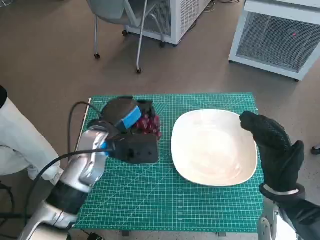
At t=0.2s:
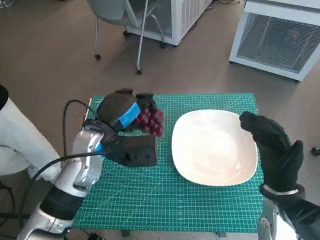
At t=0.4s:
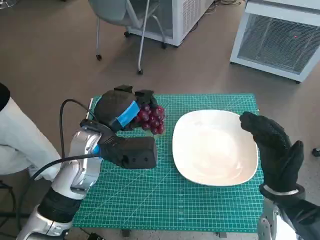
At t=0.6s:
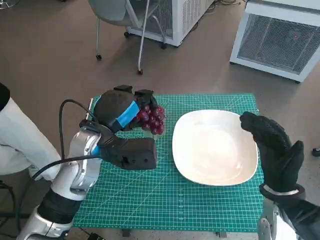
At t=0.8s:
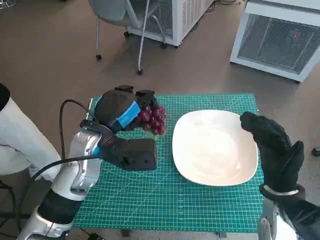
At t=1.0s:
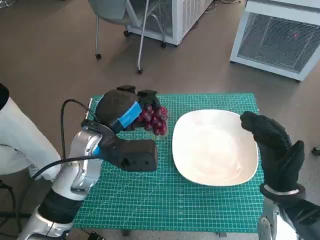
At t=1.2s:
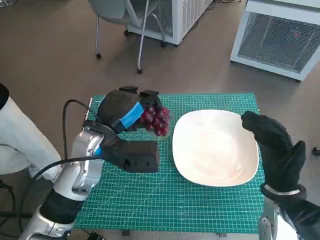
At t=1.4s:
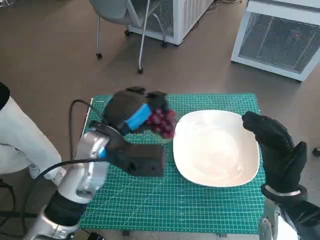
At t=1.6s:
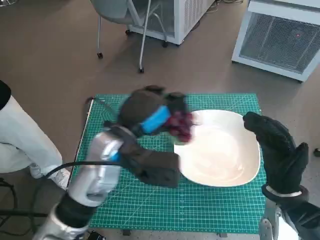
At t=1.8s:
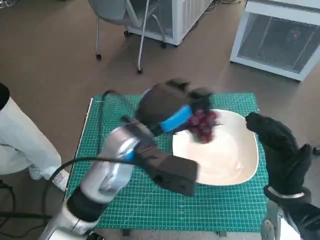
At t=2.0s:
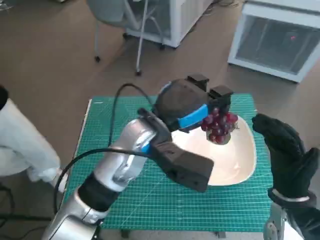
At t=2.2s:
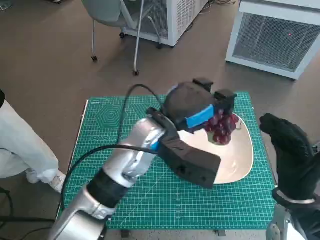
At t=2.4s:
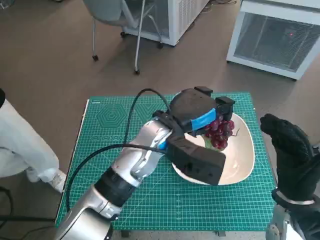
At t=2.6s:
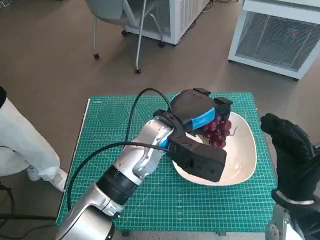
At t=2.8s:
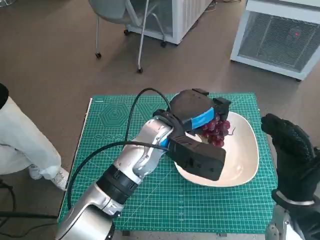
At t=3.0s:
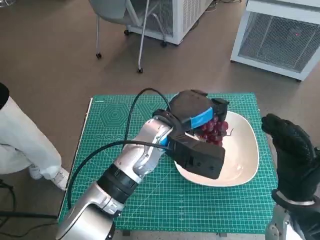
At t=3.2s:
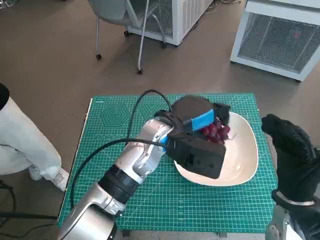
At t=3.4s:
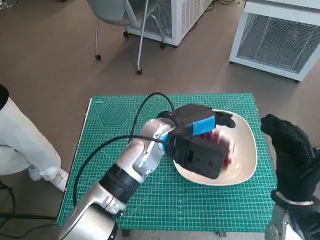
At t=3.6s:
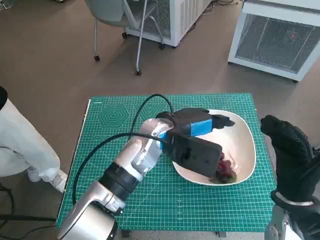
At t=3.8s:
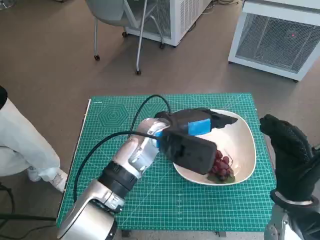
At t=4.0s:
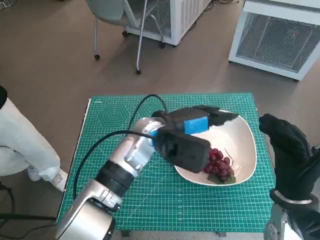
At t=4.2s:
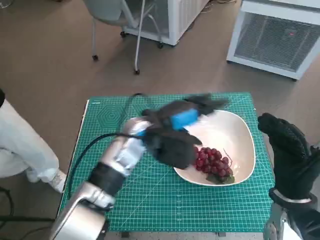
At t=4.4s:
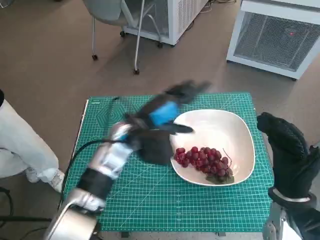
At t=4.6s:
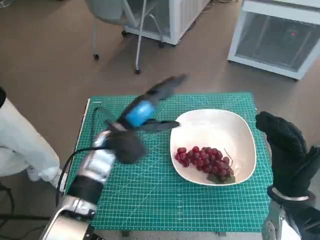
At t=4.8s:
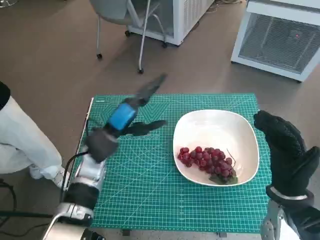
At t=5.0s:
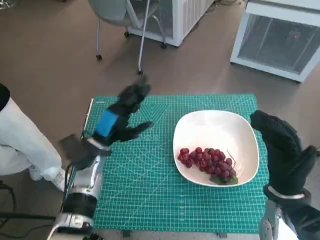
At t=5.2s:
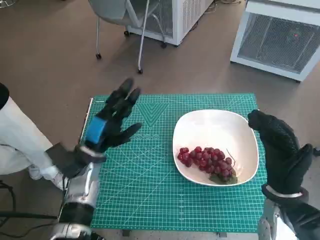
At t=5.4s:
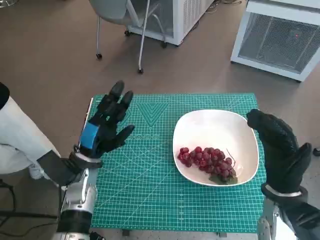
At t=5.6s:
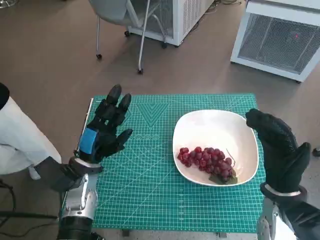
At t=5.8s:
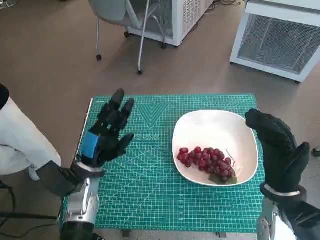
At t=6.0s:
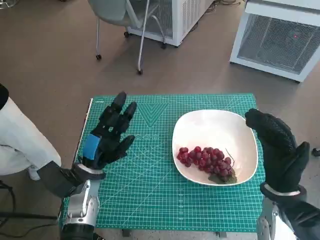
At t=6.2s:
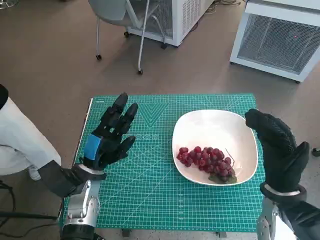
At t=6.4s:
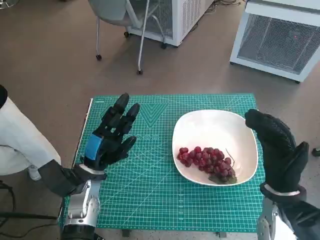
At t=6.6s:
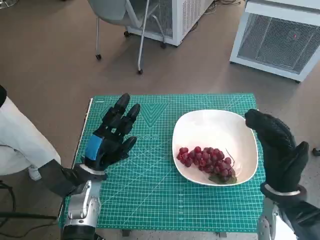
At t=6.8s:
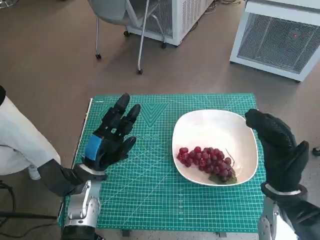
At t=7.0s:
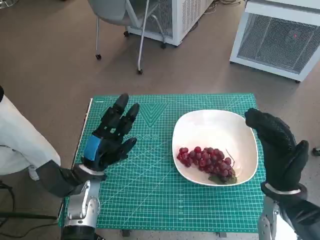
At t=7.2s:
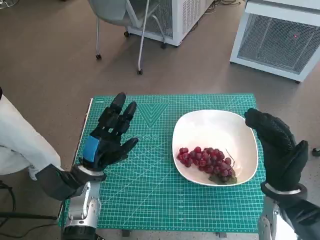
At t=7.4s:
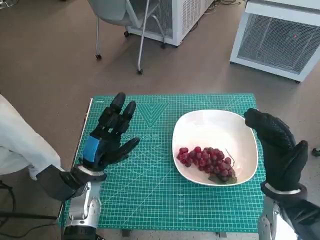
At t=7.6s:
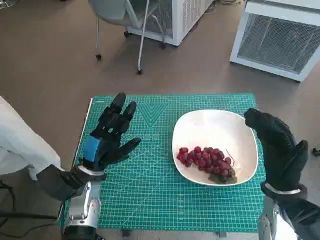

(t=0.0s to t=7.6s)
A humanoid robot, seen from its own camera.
Task of the whole recording: Pick up the grapes and put them on the plate.
Step, t=0.0s - t=3.6s: Place the grapes in the plate with left hand.
t=0.0s - t=1.6s: The left hand changes place by about 5 cm.
t=1.6s - t=3.0s: The left hand heads to the right, covering roughly 10 cm.
t=3.0s - t=4.6s: The left hand heads to the left, covering roughly 10 cm.
t=4.6s - t=6.0s: The left hand moves to the left, downward and backward, some 10 cm.
t=6.0s - t=7.6s: There are only small adjustments of the hands.

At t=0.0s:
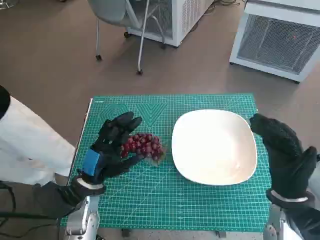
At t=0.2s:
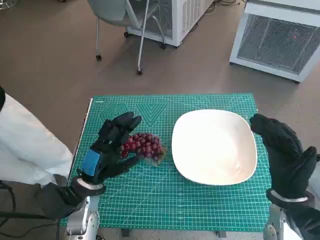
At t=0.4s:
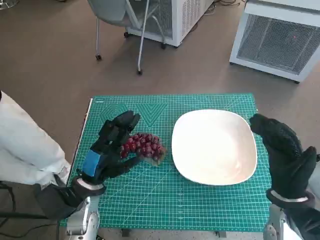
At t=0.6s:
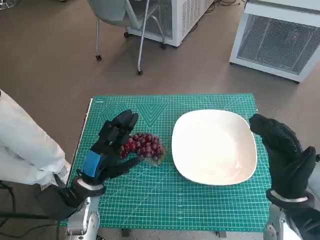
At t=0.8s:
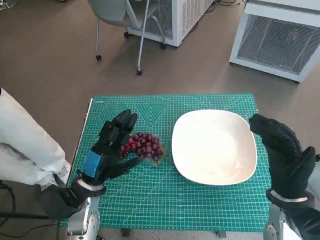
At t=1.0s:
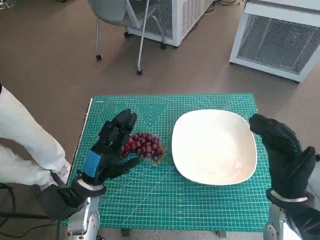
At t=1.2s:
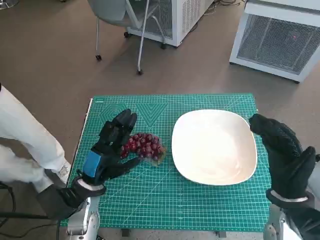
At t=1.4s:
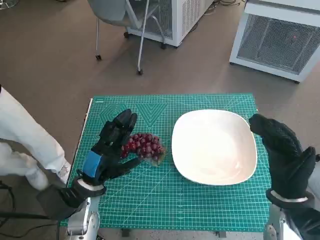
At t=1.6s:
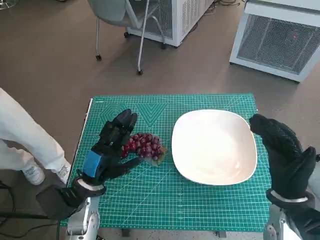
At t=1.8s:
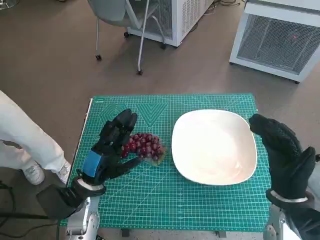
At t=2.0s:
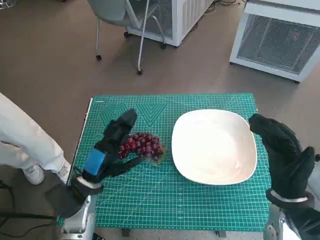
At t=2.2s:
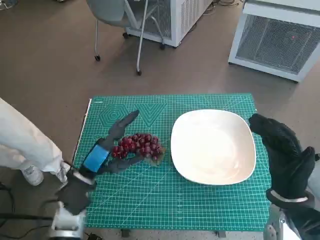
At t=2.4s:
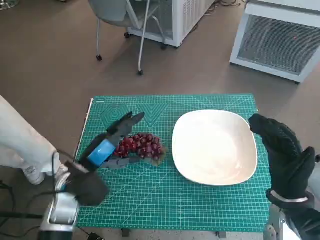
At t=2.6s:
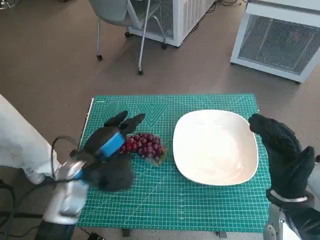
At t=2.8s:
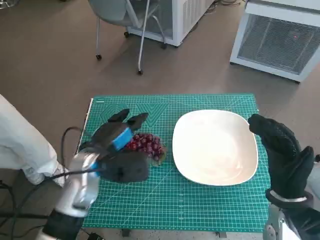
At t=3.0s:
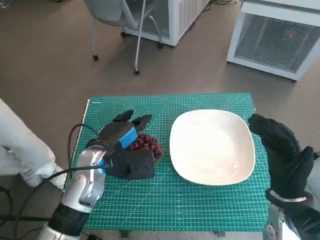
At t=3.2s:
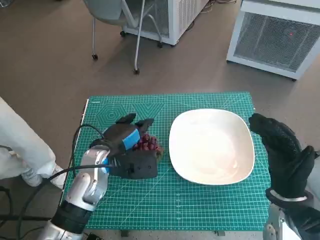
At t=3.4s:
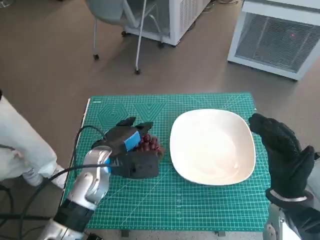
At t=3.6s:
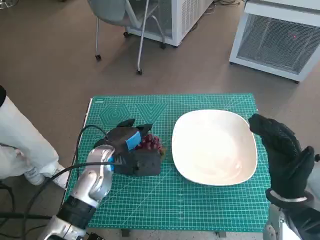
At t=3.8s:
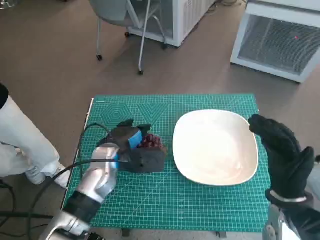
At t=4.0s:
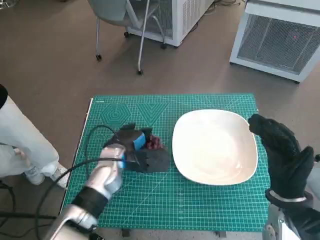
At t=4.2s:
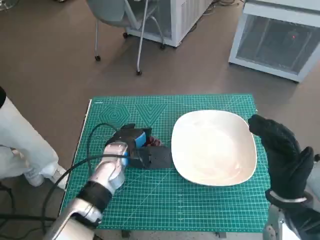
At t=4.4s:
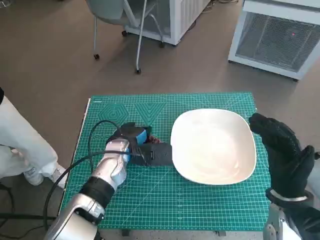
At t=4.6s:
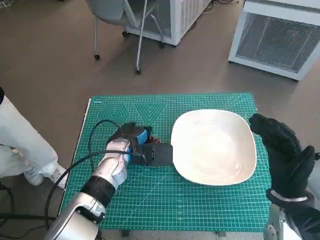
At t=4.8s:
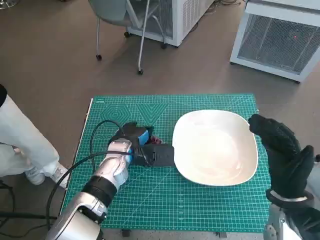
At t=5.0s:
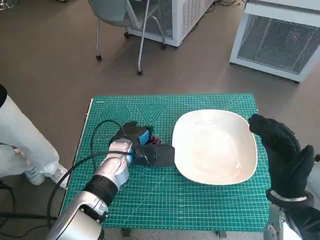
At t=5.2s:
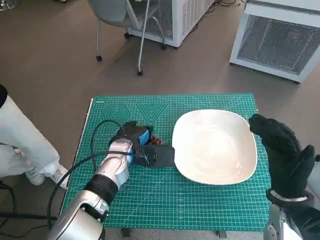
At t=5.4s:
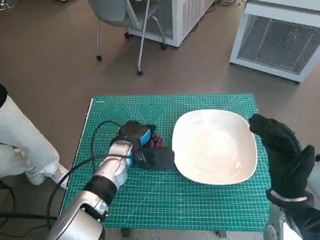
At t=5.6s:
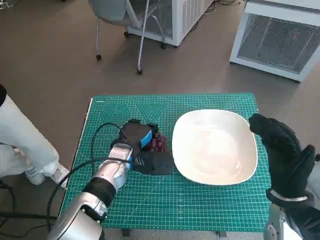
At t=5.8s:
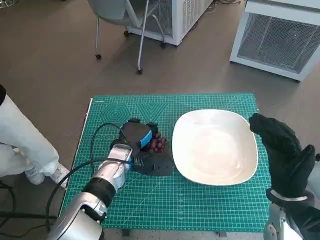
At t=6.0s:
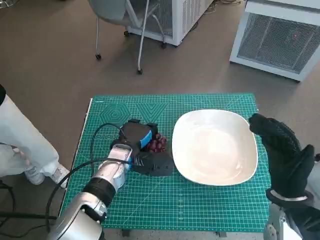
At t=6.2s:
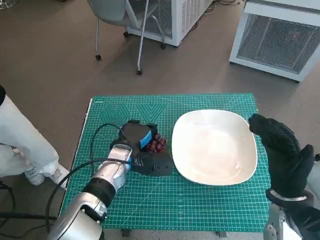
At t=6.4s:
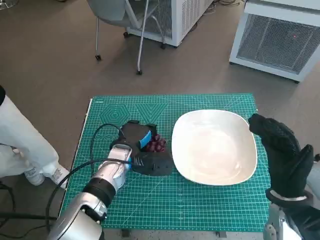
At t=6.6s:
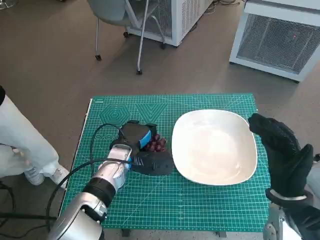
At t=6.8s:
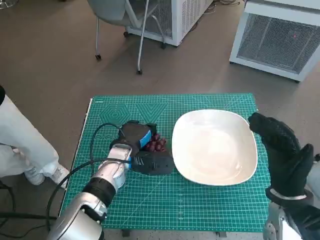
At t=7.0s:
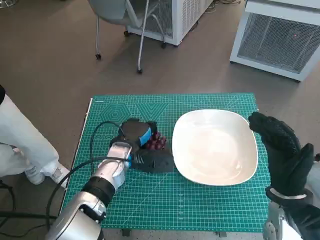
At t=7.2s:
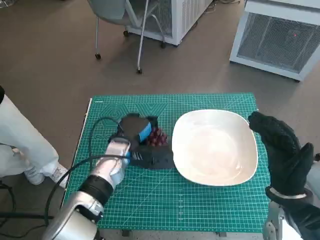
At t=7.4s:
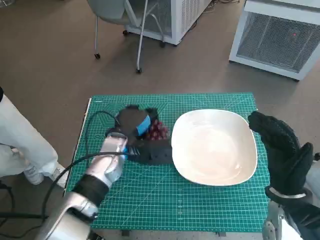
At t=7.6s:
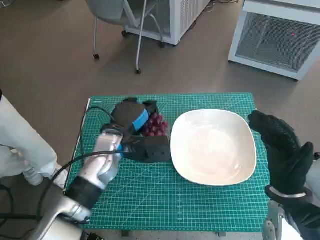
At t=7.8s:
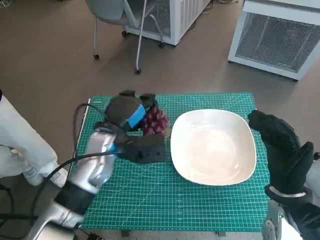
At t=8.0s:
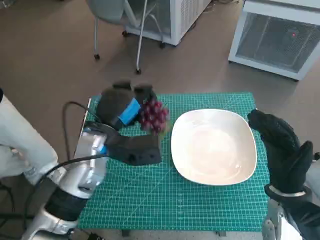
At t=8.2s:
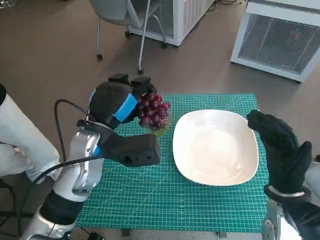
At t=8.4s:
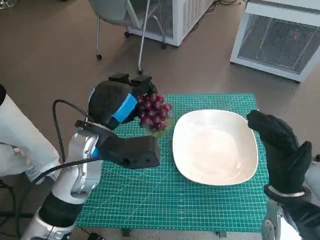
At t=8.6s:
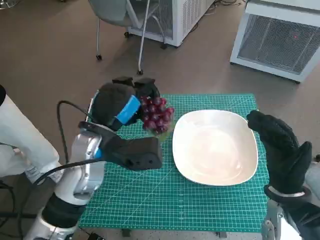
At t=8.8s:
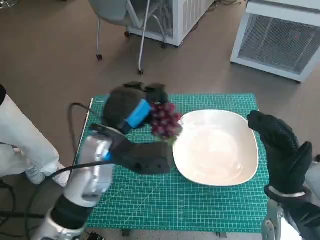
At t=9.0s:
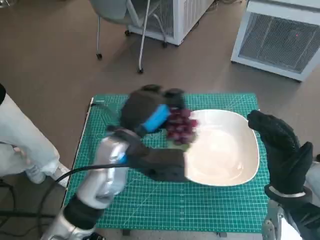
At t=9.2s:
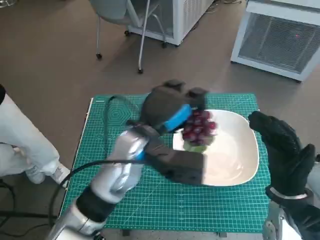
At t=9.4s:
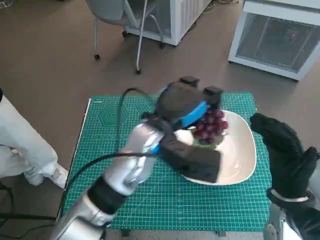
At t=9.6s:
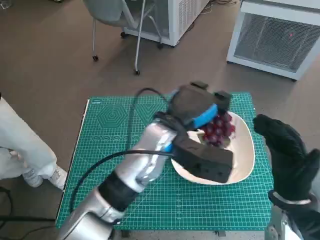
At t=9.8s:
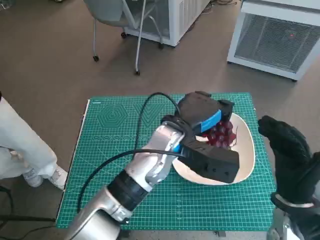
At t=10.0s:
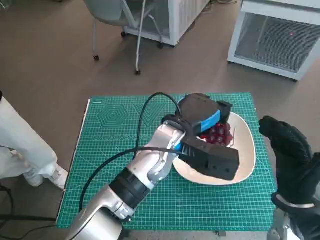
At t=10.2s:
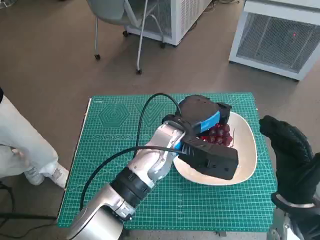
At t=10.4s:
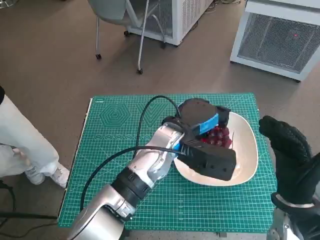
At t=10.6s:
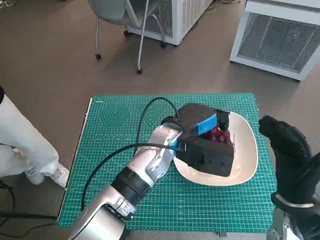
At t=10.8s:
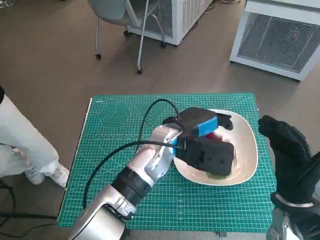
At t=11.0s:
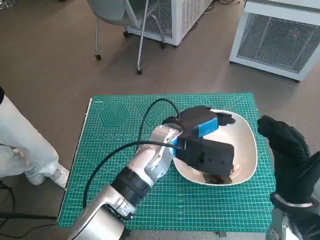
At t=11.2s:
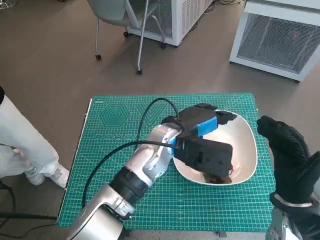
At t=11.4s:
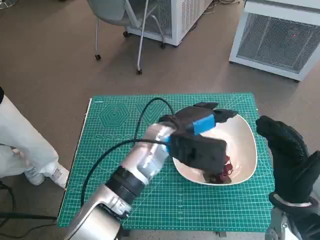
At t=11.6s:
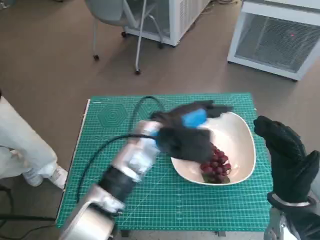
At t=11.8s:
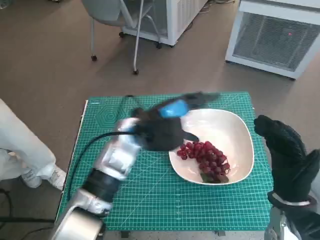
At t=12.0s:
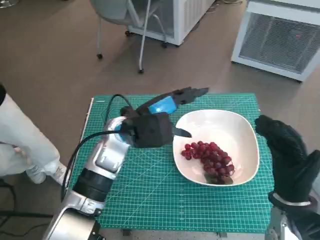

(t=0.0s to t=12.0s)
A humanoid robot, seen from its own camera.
Task of the whole recording: Pick up the grapes and put them on the plate.
Step, t=0.0s - t=5.6s: Grasp the grapes with left hand.
Step, t=5.8s - t=11.0s: Place the grapes in the plate with left hand.
t=1.6s - t=3.0s: The left hand shifts about 5 cm upward.
t=3.0s - t=4.4s: The left hand moves roughly 5 cm.
t=4.4s - t=6.0s: The hands stay close to where they were, moving slightly.
t=6.0s - t=7.6s: The left hand is displaced upward by some 5 cm.
t=7.6s - t=9.0s: The left hand travels upward by about 5 cm.
t=9.0s - t=10.4s: The left hand heads to the right, covering approximately 10 cm.
t=10.4s - t=12.0s: The left hand is displaced to the left by some 10 cm.

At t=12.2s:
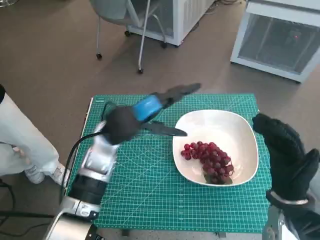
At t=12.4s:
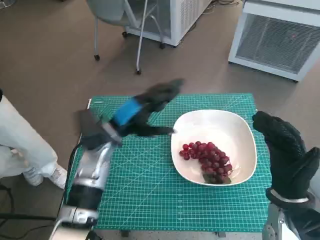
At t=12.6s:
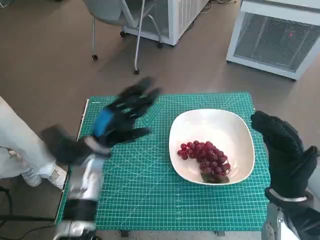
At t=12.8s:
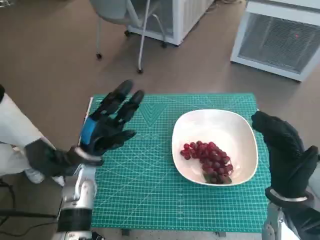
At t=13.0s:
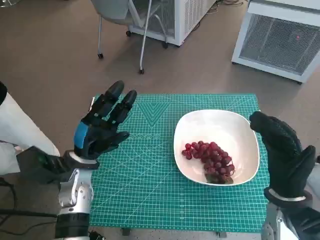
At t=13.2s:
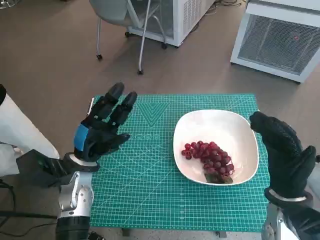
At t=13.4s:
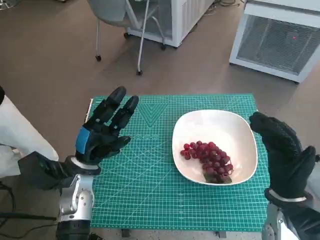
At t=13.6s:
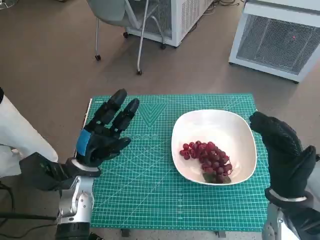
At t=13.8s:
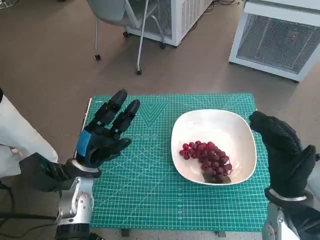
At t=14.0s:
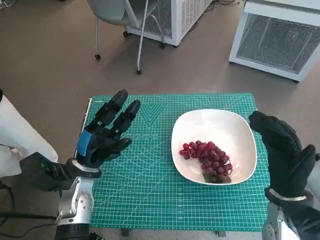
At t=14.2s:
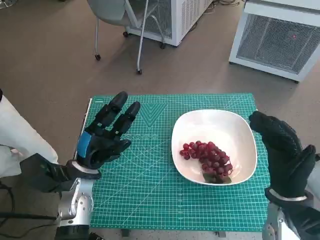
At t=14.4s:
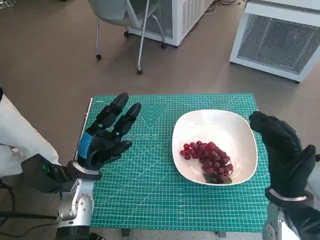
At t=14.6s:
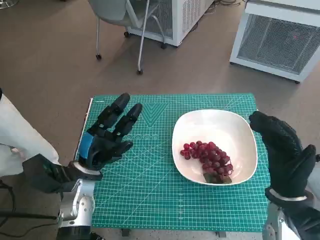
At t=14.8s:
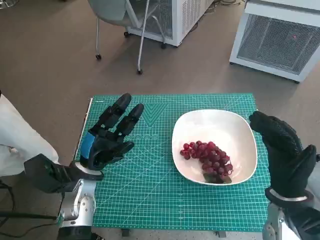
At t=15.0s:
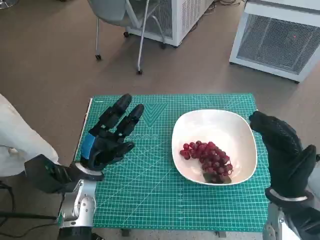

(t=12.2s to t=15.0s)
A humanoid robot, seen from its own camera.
Task of the whole recording: Pick up the grapes and put them on the plate.
t=12.2s - t=13.6s: The left hand is displaced to the left, downward and backward by some 15 cm.
t=13.6s - t=15.0s: Both hands stay put.
